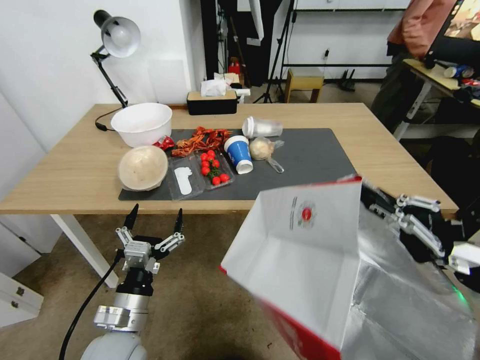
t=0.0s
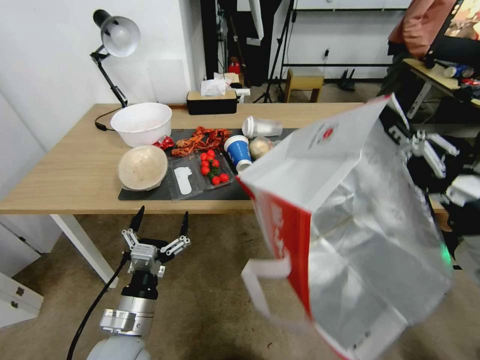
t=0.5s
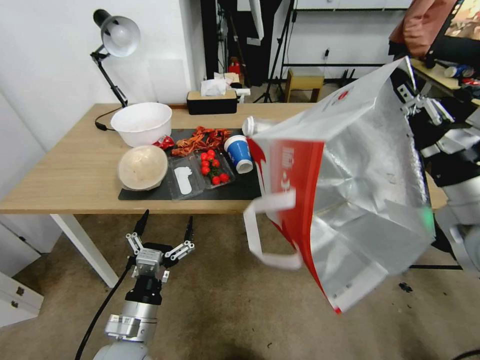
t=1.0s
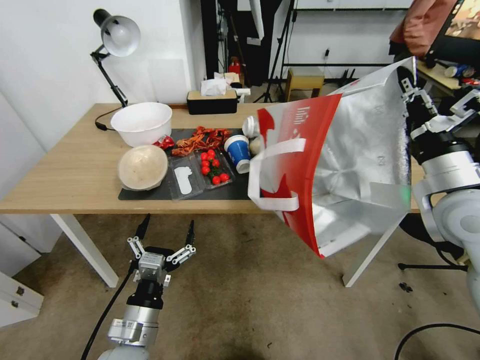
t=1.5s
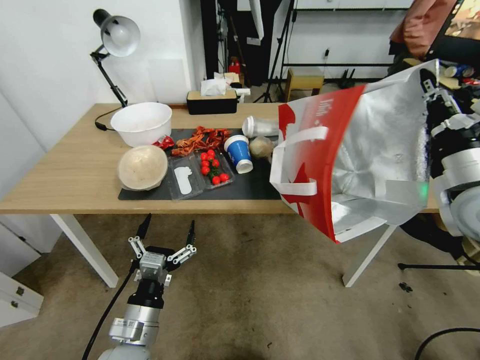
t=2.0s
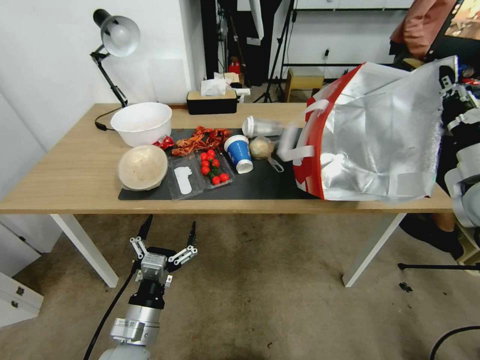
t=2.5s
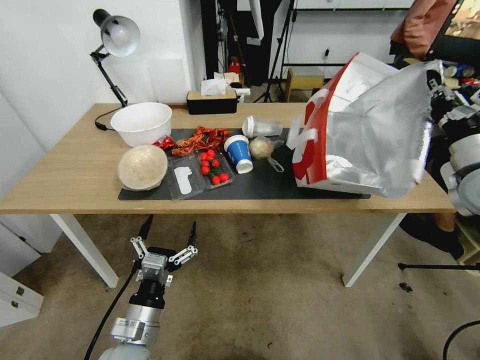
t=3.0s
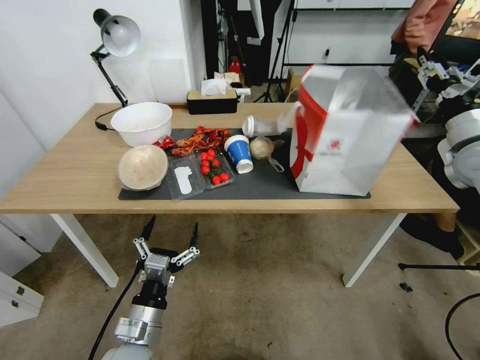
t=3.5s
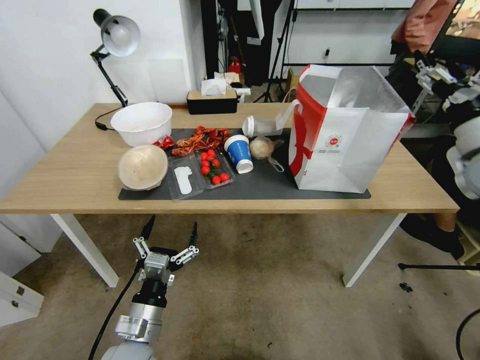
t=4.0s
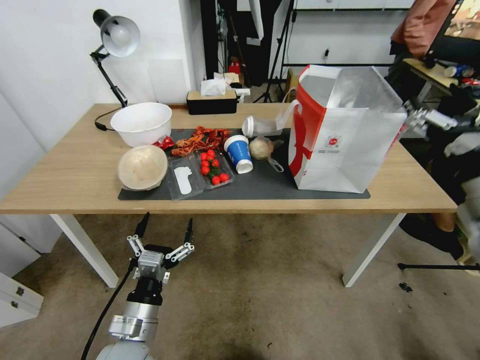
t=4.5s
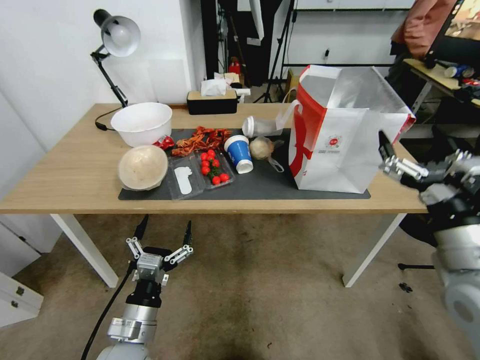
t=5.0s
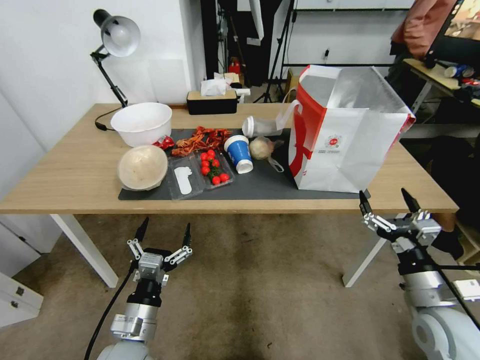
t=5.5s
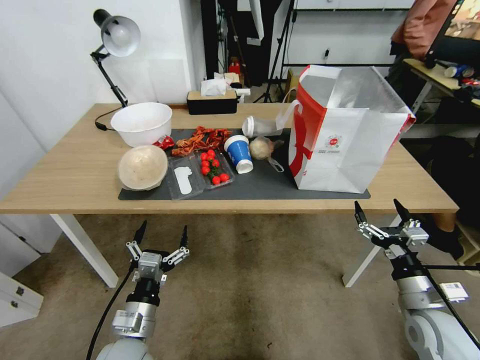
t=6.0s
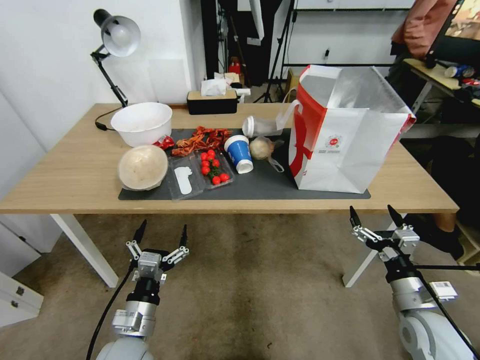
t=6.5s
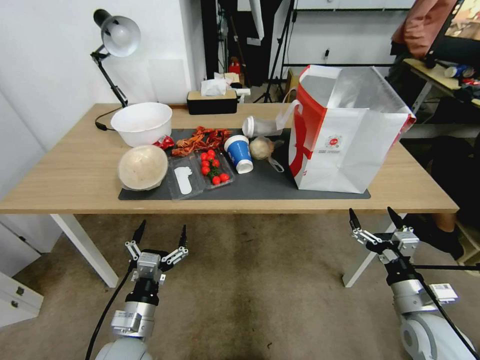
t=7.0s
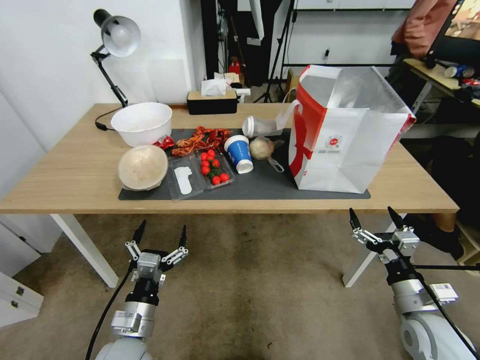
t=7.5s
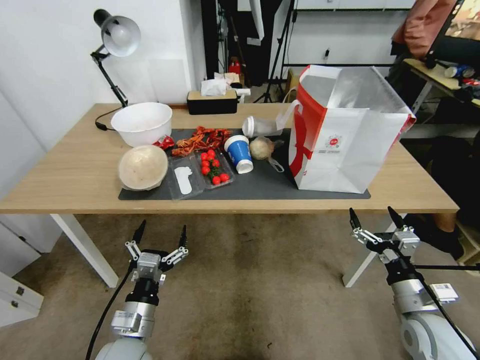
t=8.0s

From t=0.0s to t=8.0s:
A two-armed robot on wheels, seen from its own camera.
Task of the whole recording: Pick up the food delivery bag from the floor and place it on the table.
From t=0.0s to t=2.0s: The right gripper is displaced forward by some 15 cm.
From t=2.0s to t=4.0s: The right gripper heads forward, covering approximately 5 cm, and opens.
From t=4.0s to t=6.0s: The right gripper shifts some 30 cm downward and backward.
From t=6.0s to t=8.0s: The grippers make only small movements.
